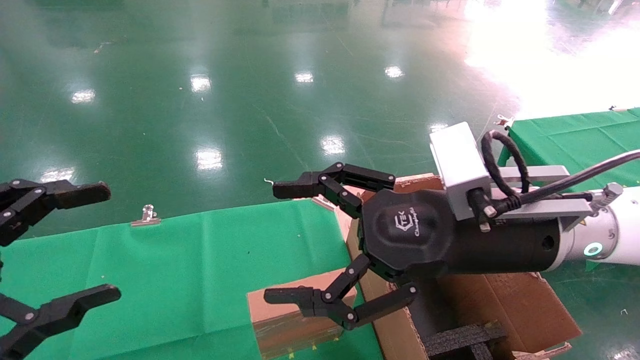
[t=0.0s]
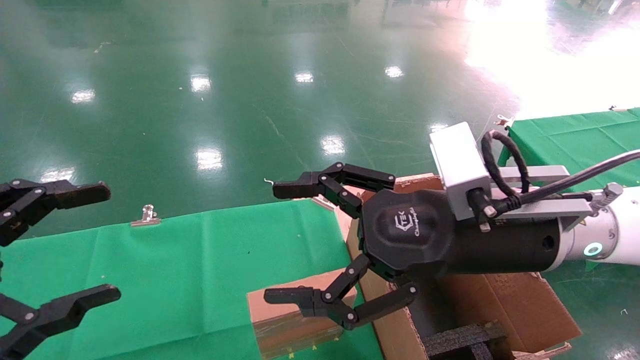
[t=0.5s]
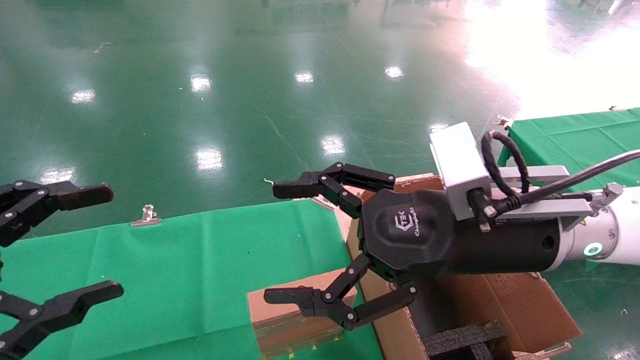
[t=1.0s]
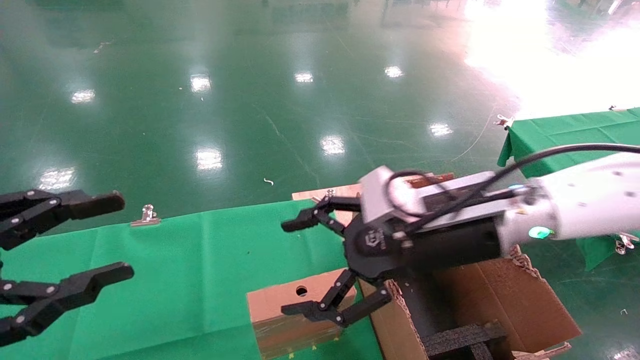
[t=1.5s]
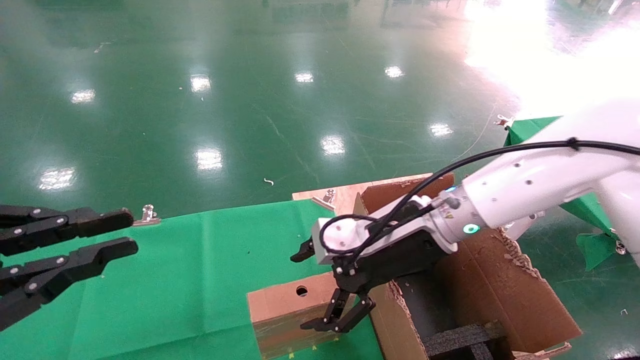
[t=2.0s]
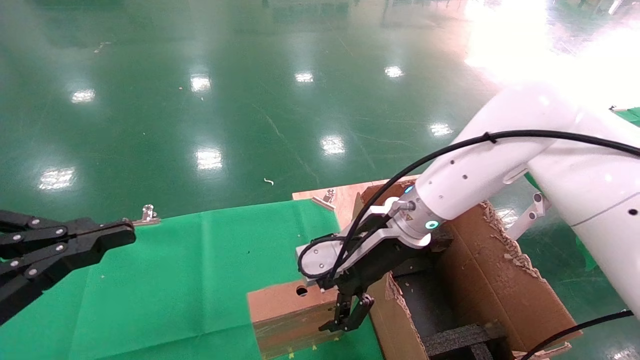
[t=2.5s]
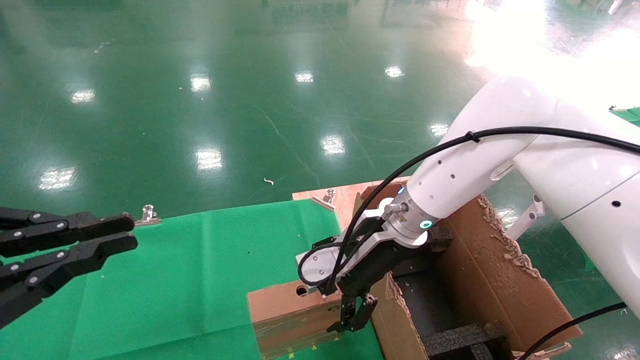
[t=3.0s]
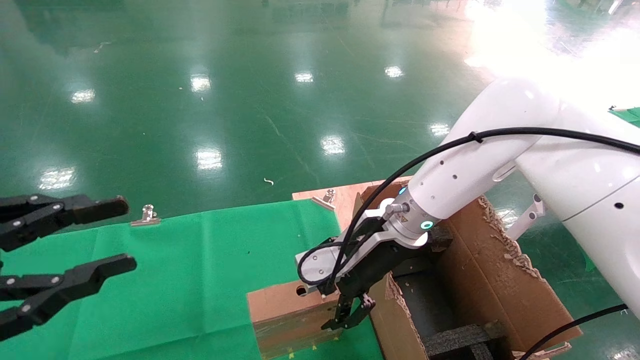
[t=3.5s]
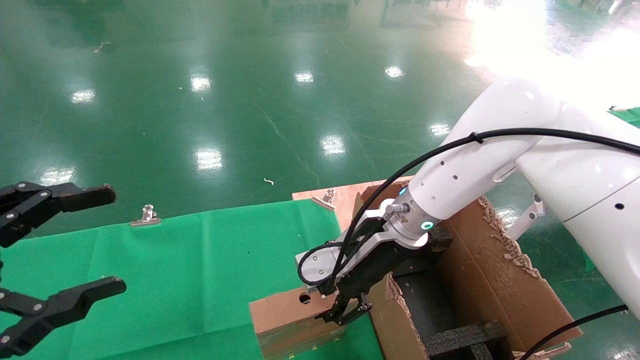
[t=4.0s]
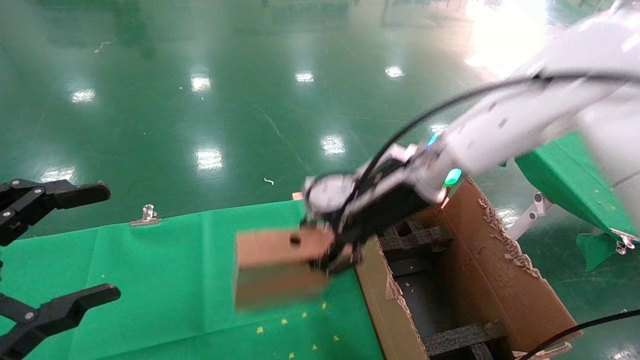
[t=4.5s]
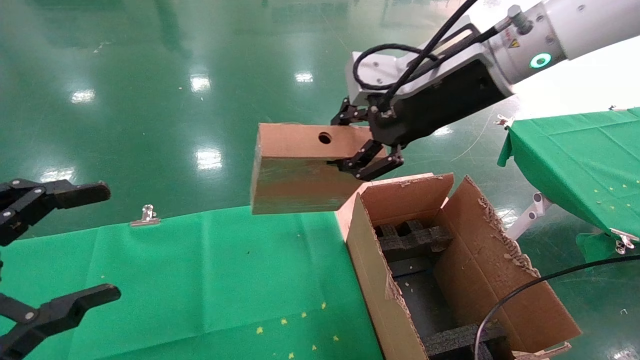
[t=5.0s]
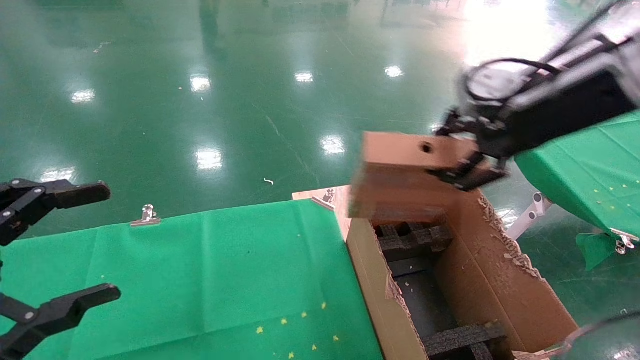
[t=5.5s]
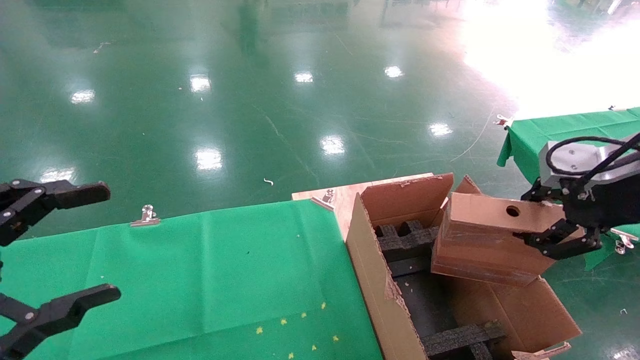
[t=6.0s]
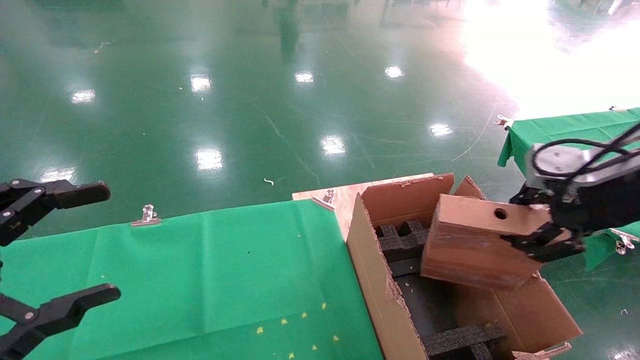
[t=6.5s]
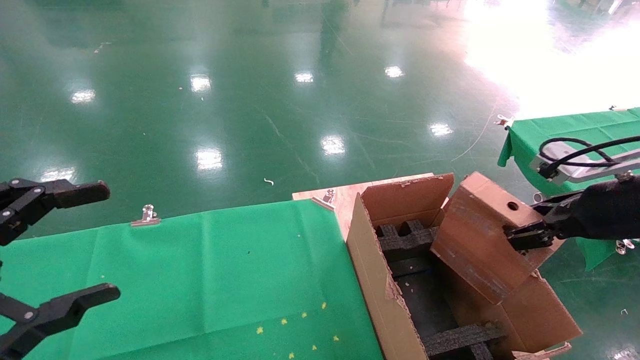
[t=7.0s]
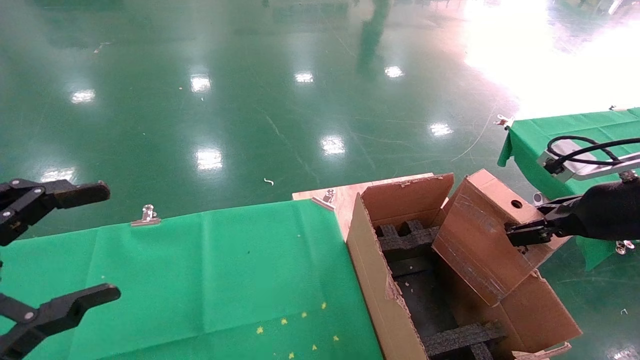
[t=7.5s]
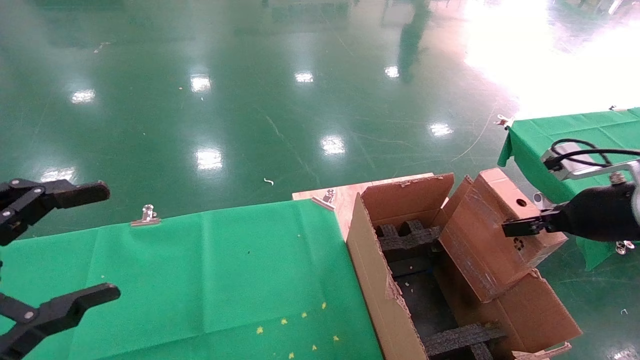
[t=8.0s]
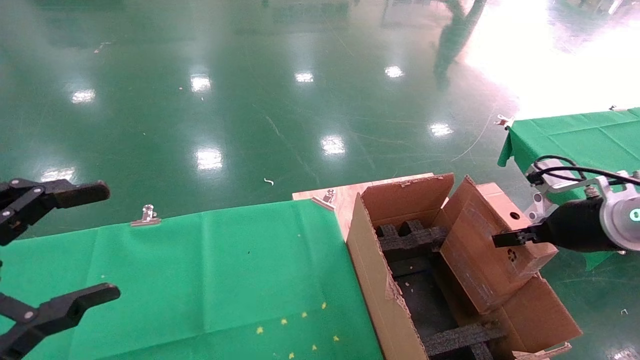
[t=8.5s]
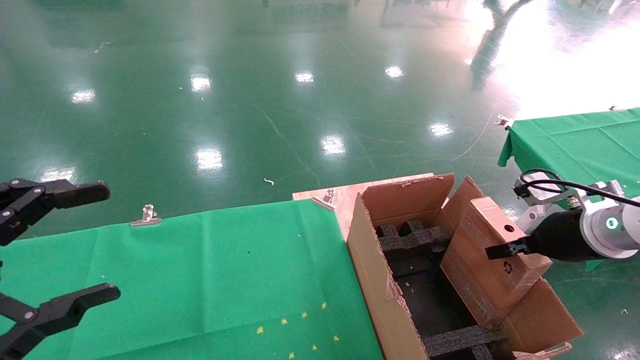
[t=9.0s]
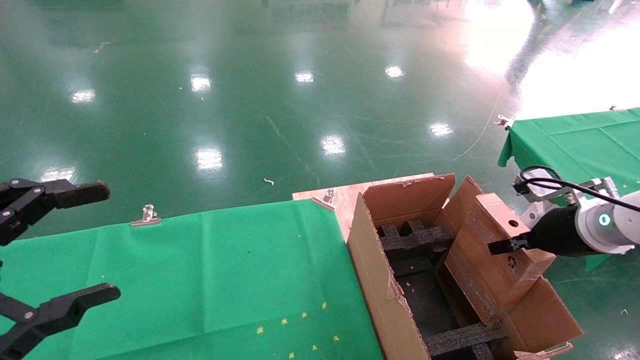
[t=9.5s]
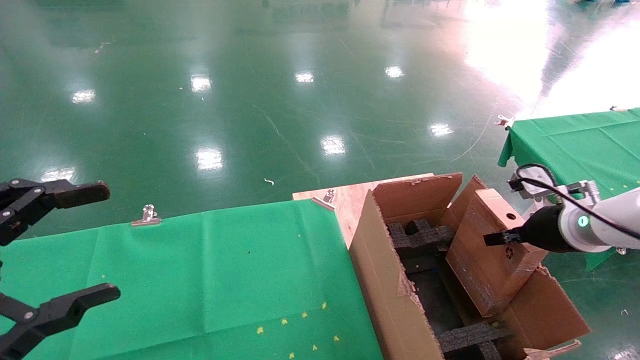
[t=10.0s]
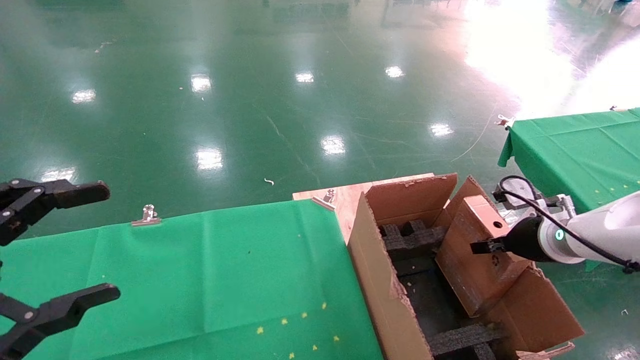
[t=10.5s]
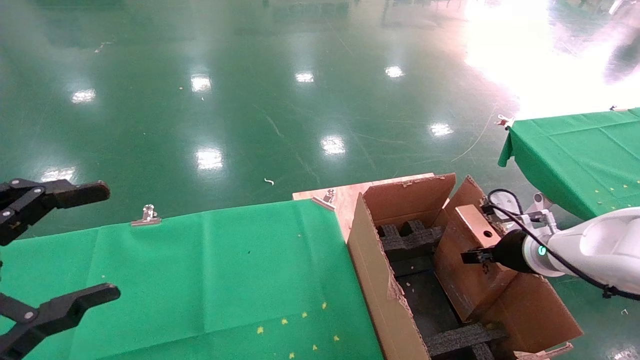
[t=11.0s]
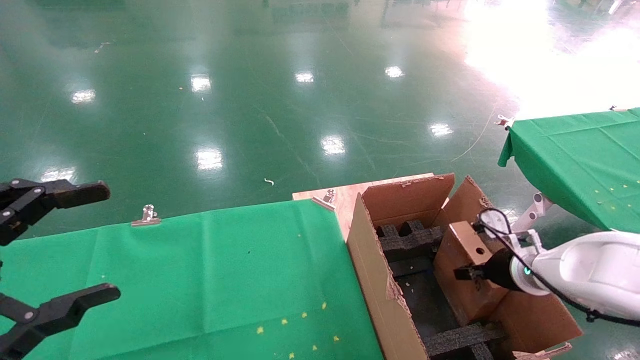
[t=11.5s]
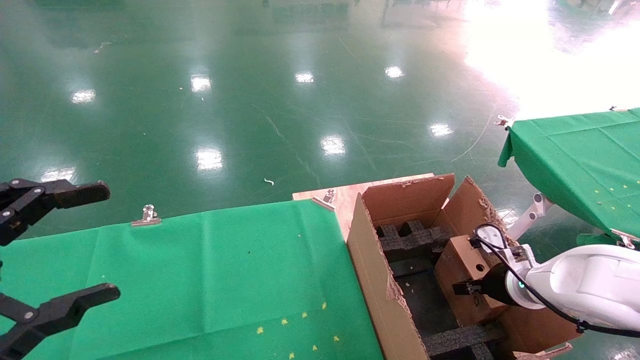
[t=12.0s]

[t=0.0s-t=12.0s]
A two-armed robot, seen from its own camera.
Task of the whole recording: using a robotic arm to pick up a cardboard box and palace it the carton.
Step, t=1.5s to t=3.5s: Pick up the mouse and the power cord paper box.
t=0.0s to t=2.0s: The left gripper closes; the right gripper shifts some 10 cm forward.
t=2.0s to t=4.0s: The right gripper closes up; the left gripper opens its fingers.
t=4.0s to t=6.0s: The right gripper is displaced to the right, backward and upward by about 30 cm.
t=6.0s to t=8.0s: The right gripper moves downward, approximately 10 cm.
t=8.0s to t=10.0s: The right gripper travels forward and downward by roughly 10 cm.
t=10.0s to t=12.0s: The right gripper goes about 15 cm downward.

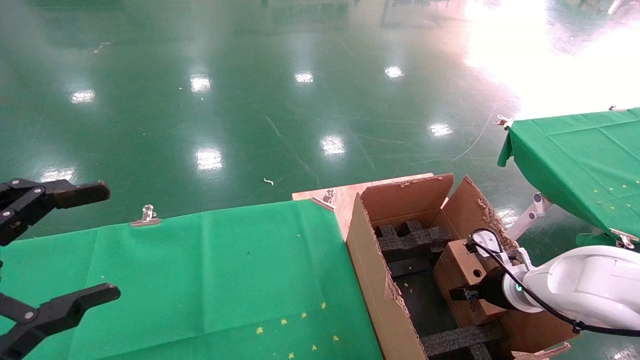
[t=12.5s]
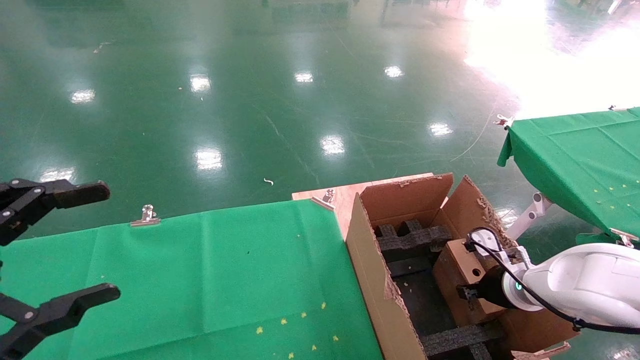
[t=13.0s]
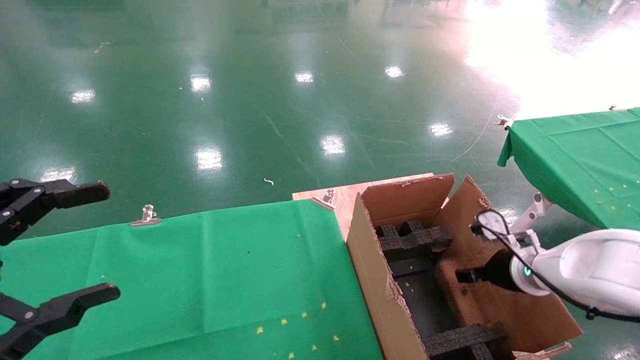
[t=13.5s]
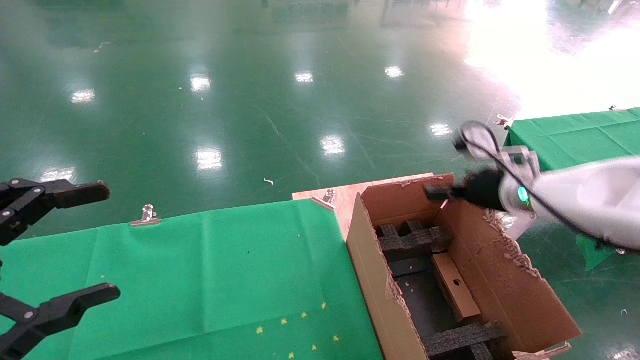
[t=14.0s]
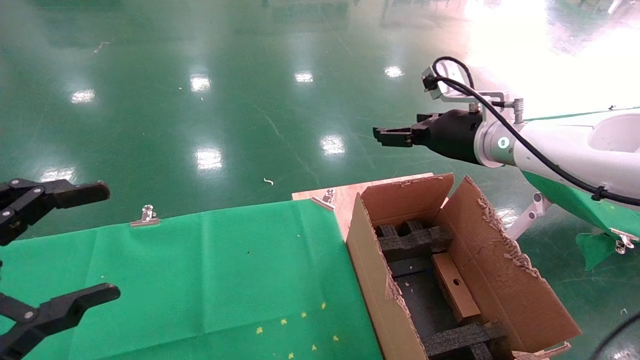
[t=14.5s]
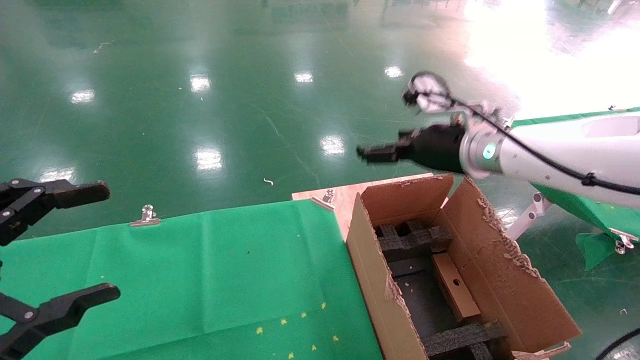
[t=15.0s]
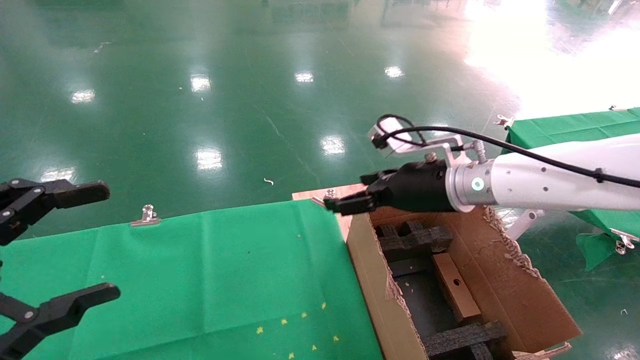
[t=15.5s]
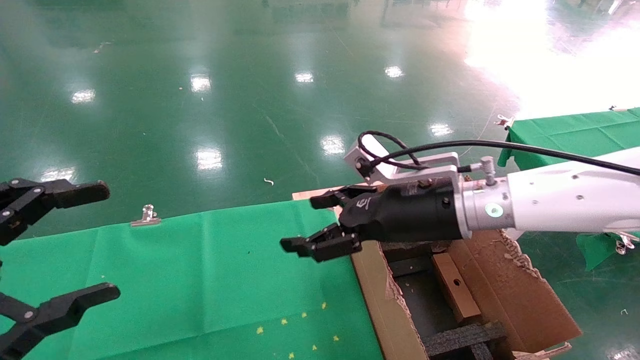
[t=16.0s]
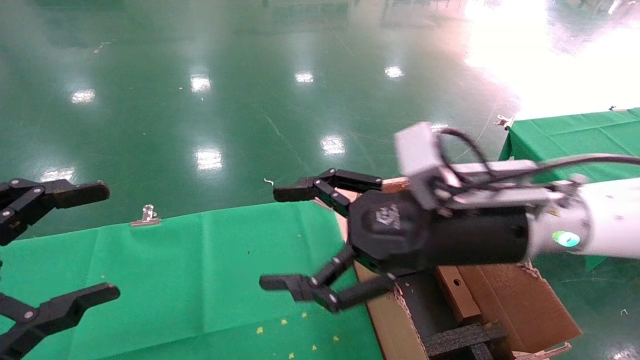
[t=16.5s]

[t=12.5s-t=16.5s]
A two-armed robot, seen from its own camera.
Task of the whole recording: using a robotic arm to pick up a cardboard box and palace it the carton.
t=12.5s to t=14.5s: The right gripper is displaced upward by approximately 25 cm, and opens its fingers.
t=14.5s to t=16.5s: The right gripper heads backward and to the left, covering approximately 15 cm.
